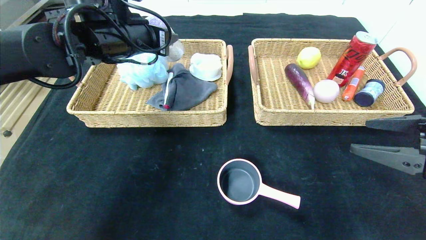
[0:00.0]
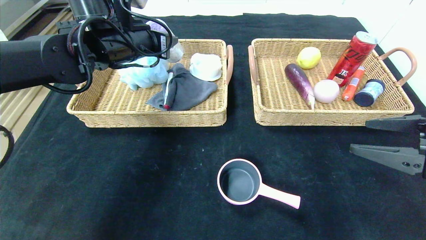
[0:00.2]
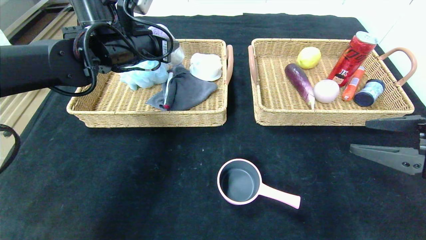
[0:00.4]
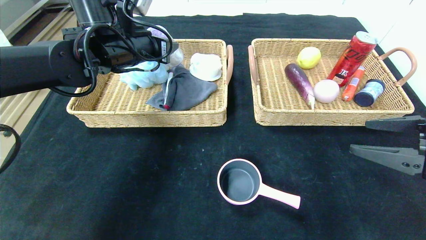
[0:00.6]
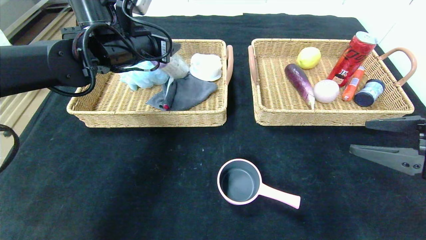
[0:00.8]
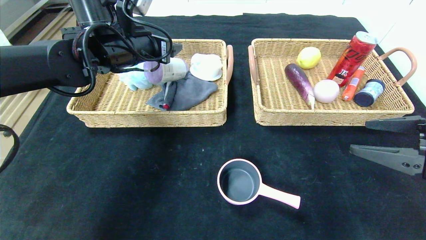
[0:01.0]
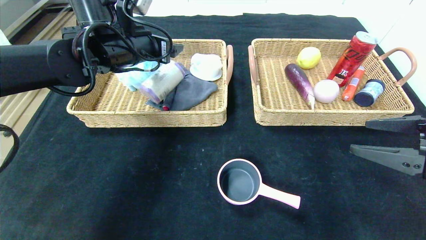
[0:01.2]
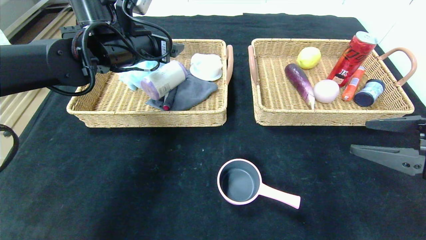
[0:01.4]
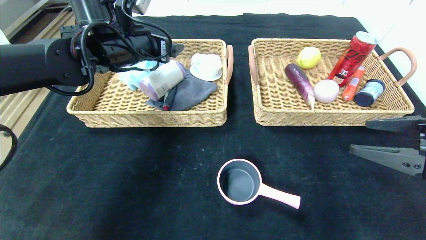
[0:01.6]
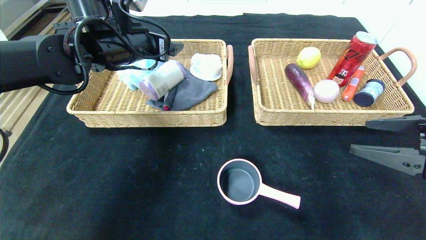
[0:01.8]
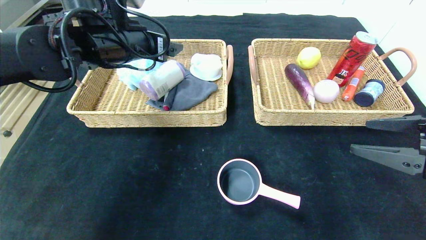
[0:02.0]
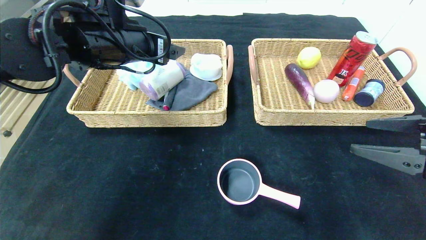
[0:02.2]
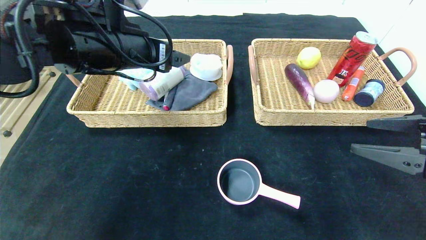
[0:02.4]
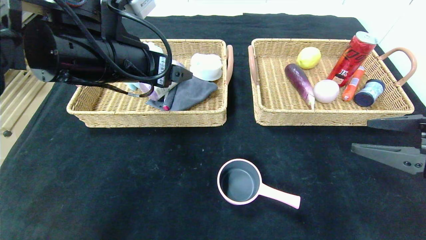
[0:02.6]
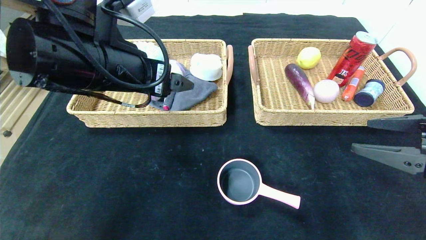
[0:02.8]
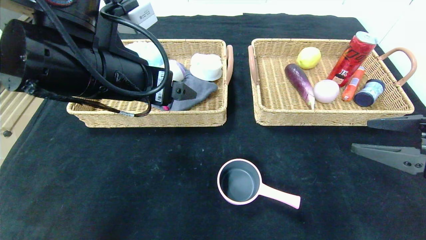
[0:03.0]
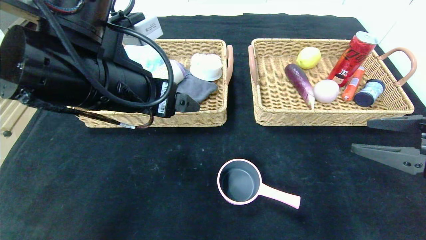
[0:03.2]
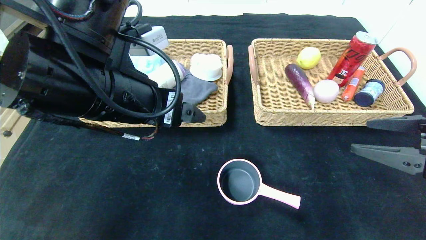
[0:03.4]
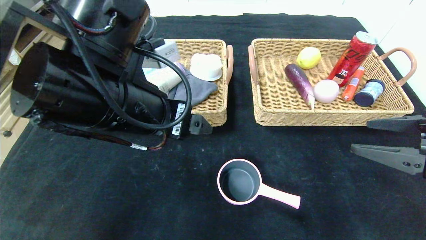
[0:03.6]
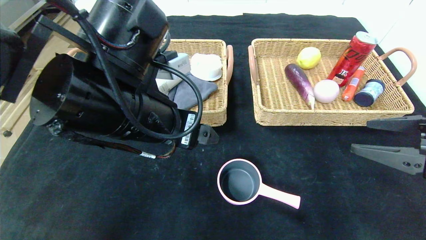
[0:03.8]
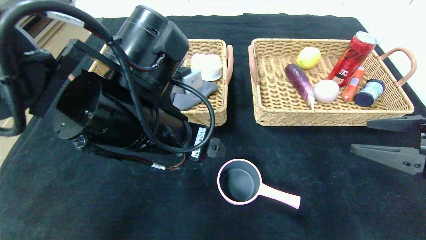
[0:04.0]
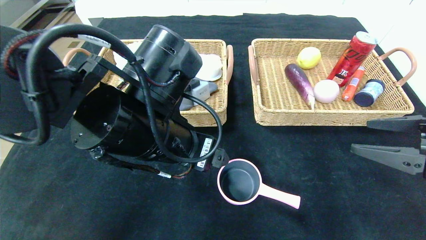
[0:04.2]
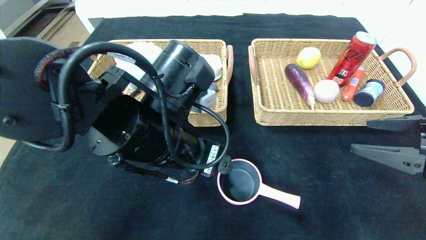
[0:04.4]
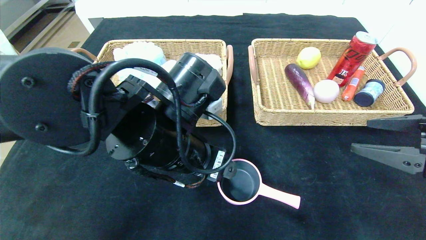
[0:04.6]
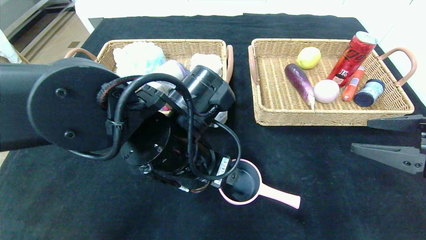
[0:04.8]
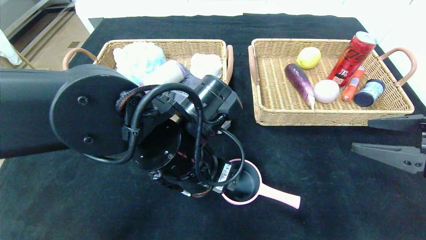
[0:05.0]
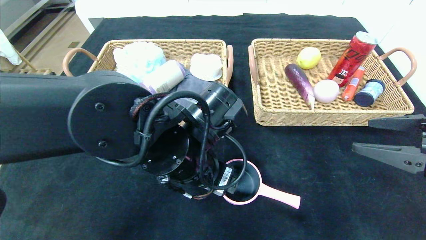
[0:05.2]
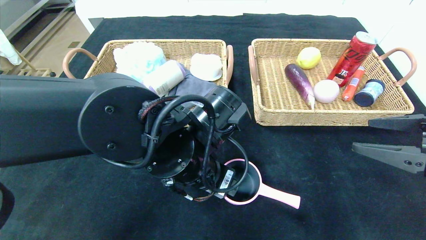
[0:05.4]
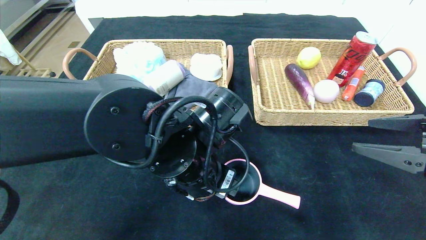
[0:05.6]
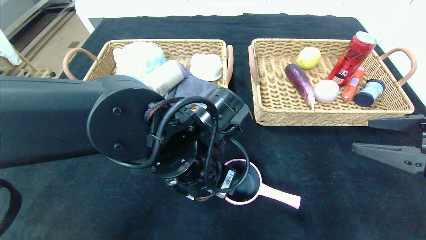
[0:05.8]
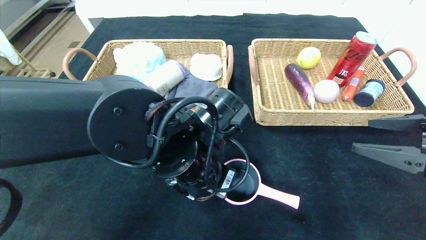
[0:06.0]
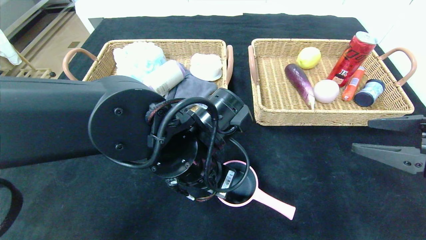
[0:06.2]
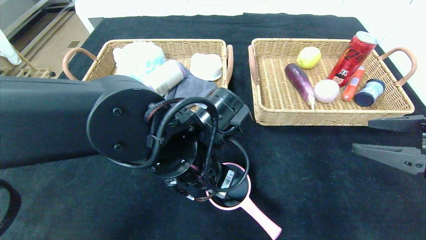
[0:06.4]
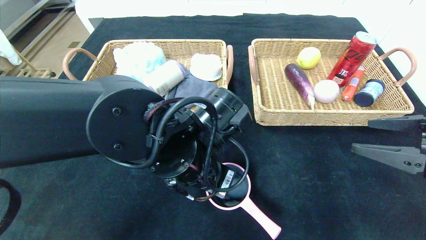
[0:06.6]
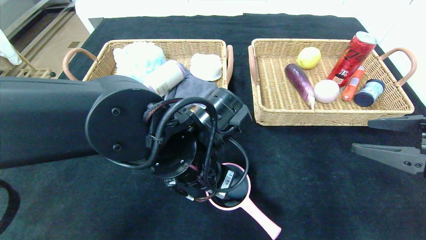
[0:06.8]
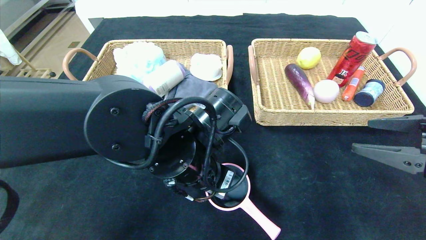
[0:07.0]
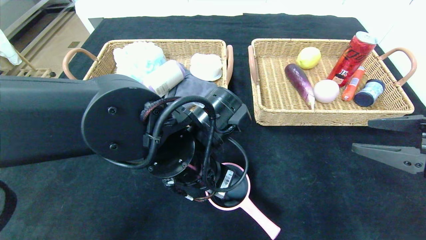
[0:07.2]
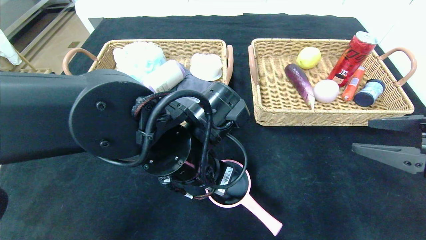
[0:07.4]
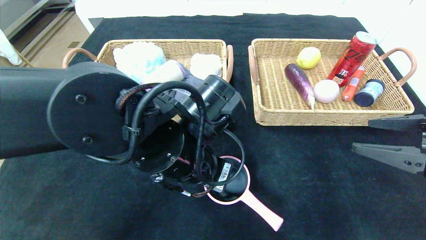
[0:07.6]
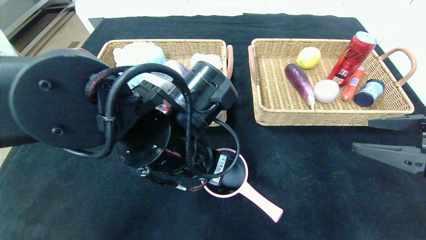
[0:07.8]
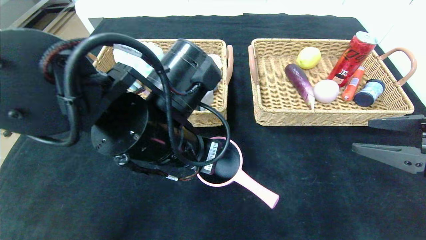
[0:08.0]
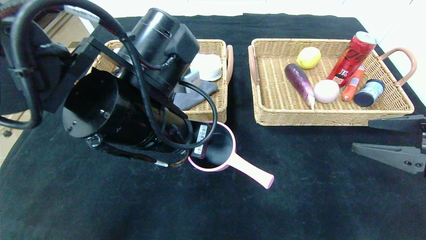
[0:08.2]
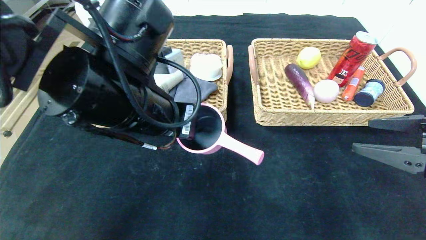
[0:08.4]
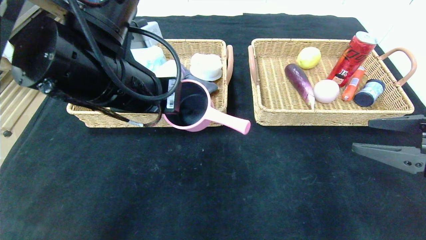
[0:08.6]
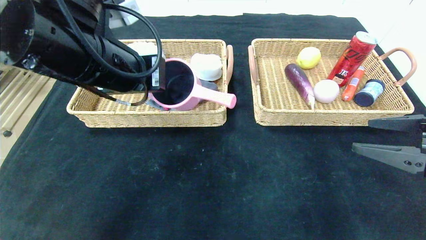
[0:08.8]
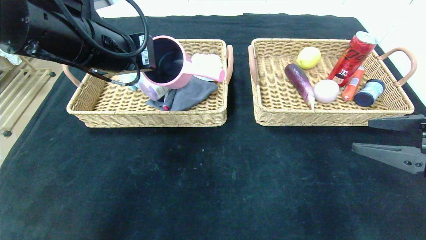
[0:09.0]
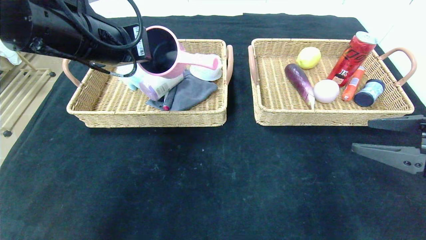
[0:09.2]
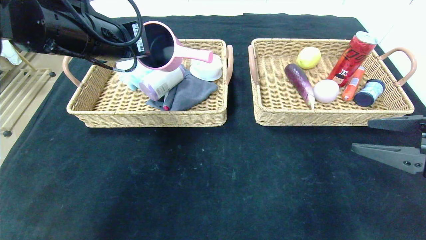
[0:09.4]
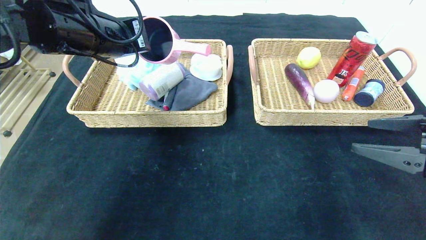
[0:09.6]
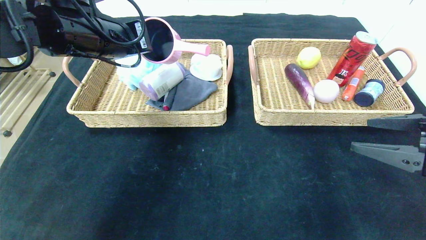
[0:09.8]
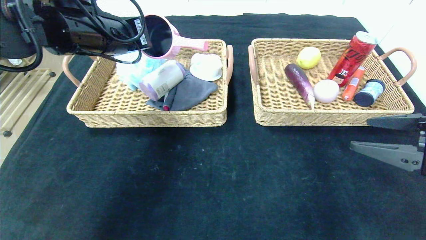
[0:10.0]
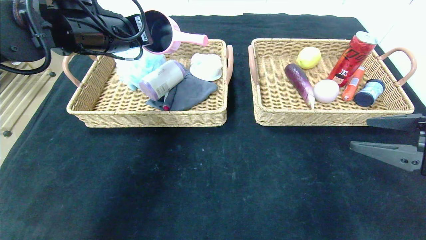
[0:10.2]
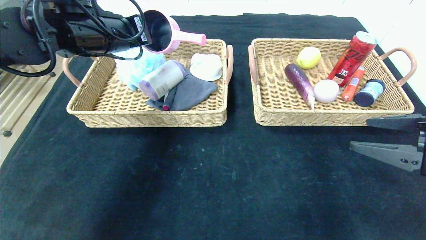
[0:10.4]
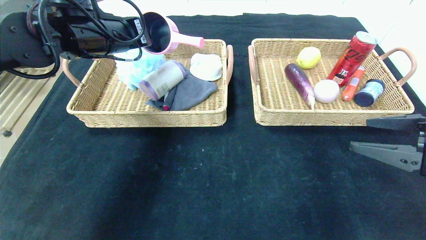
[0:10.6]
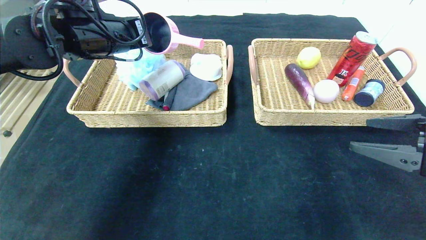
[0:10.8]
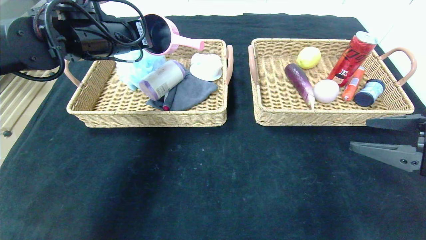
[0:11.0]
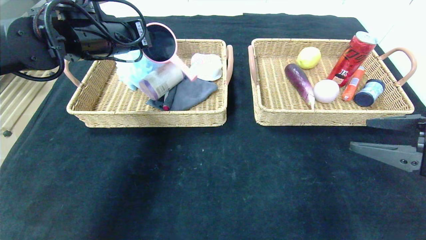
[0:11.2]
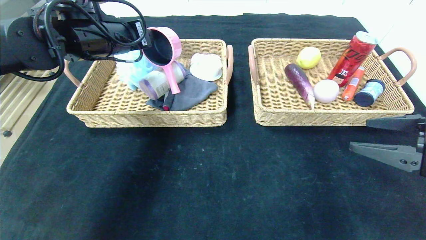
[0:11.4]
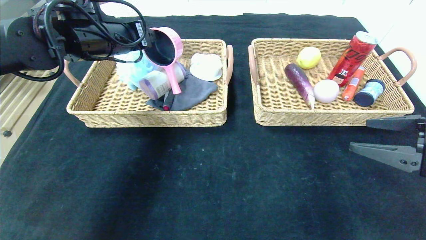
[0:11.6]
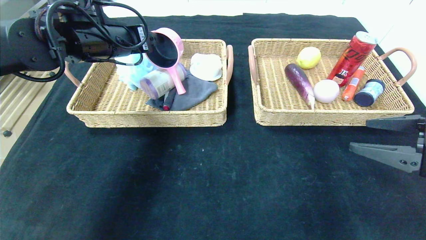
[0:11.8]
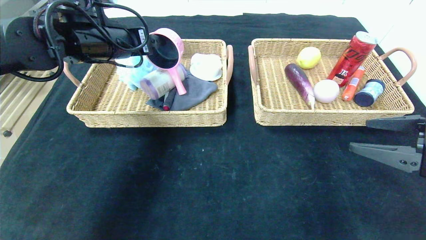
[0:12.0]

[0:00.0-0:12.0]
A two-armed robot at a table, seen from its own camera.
0:00.0 to 0:01.6: The left gripper opens its fingers.
0:01.6 to 0:03.0: The left gripper moves backward, roughly 15 cm.
0:03.0 to 0:04.4: The left gripper shifts approximately 10 cm downward and to the right.
0:04.4 to 0:06.0: The left gripper shifts by some 5 cm, and closes its fingers.
0:06.0 to 0:07.6: The left gripper closes its fingers.
0:07.6 to 0:09.0: The left gripper is displaced upward and to the left by some 20 cm.
0:09.0 to 0:10.4: The left gripper shifts approximately 10 cm forward.
0:10.4 to 0:12.0: The left gripper opens up.

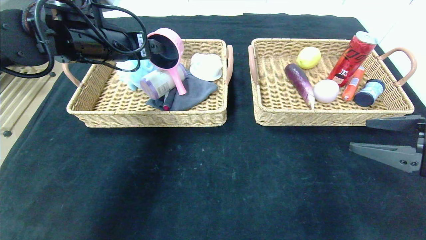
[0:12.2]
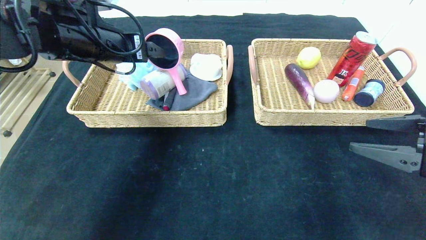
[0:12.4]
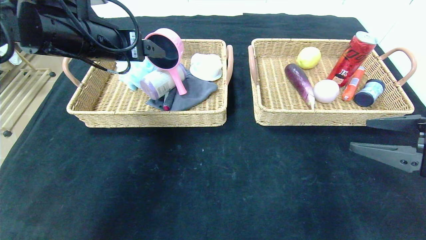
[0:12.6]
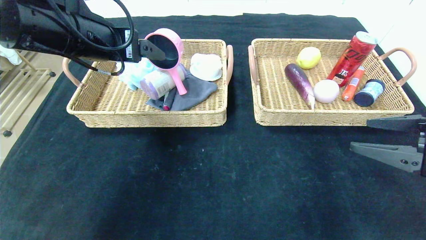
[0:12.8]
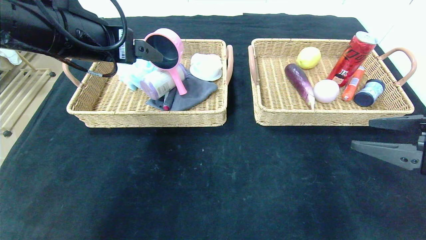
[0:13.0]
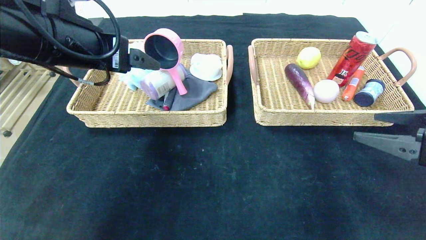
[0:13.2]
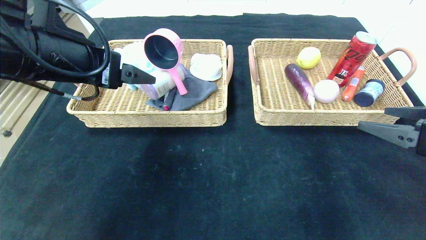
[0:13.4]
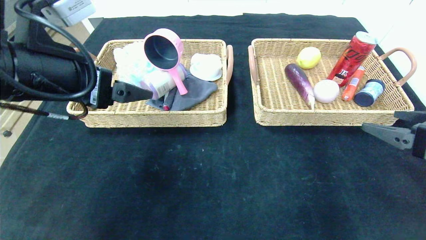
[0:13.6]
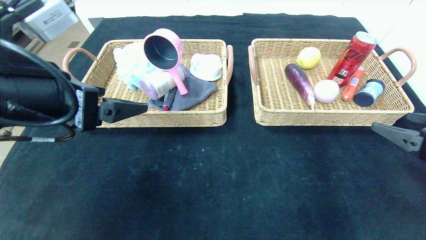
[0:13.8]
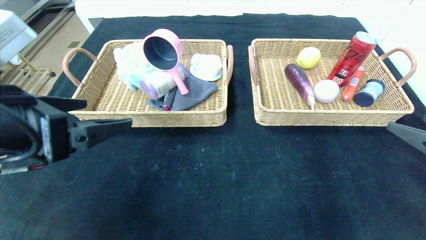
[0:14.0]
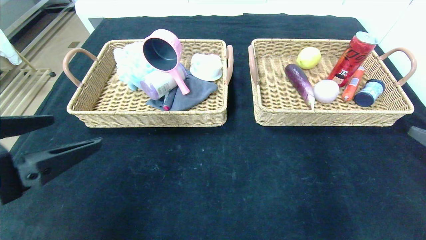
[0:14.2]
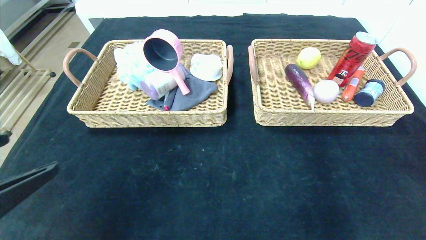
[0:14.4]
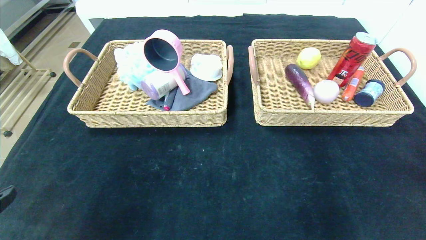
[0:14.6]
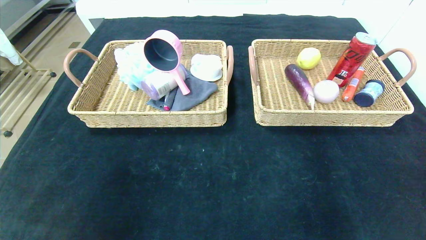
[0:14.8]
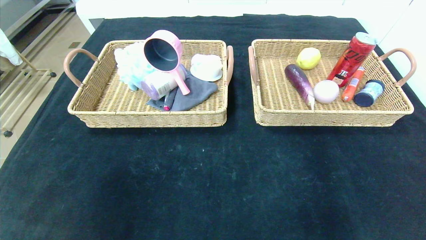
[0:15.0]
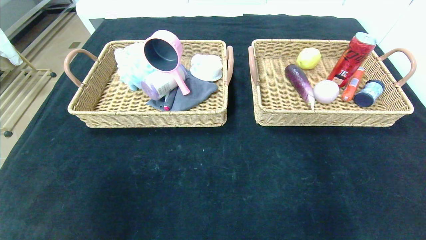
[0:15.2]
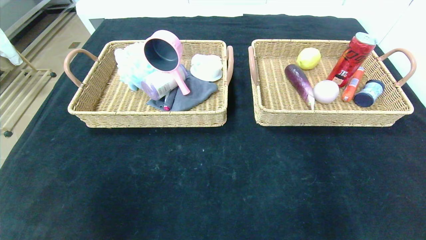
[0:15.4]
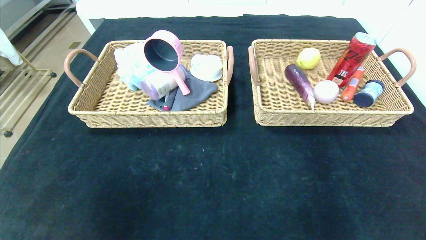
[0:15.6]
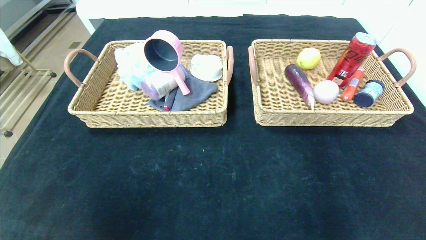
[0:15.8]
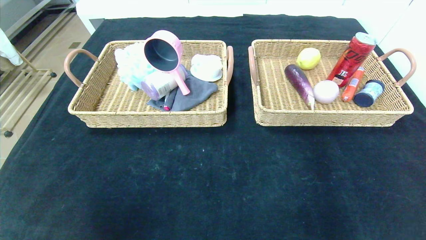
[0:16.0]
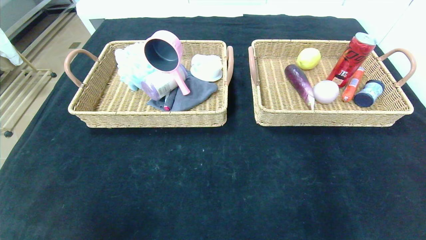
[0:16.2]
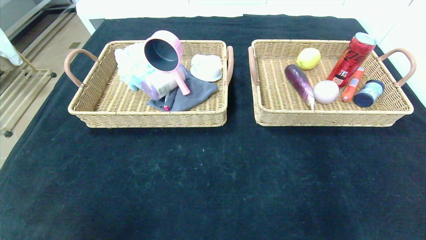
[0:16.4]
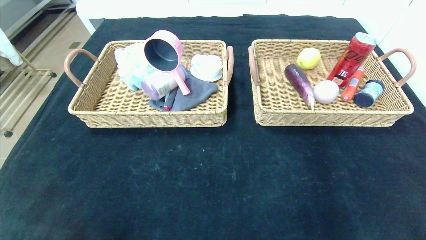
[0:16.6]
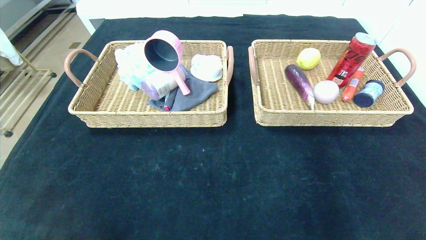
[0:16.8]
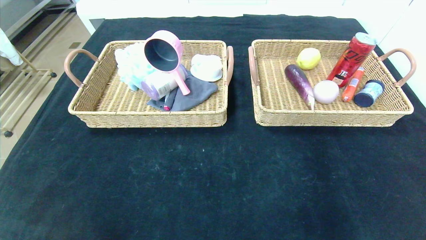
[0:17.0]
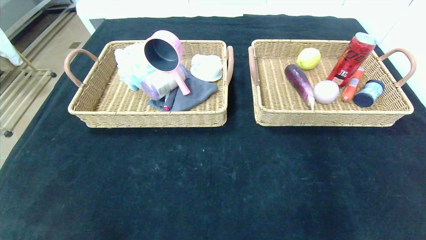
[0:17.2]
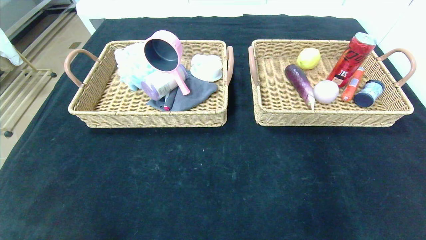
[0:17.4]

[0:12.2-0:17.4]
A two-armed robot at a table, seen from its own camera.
Step, 0:12.2 to 0:14.4: Grasp the pink pot and put it in the left basket.
0:12.2 to 0:14.0: The left gripper travels backward by some 20 cm.
0:14.0 to 0:15.6: The grippers both shift backward and downward by about 20 cm.
